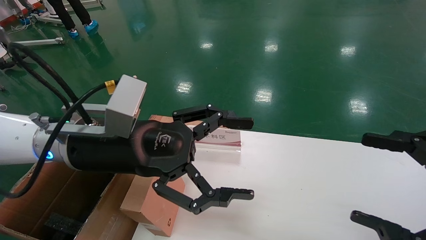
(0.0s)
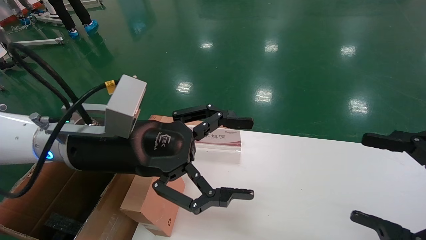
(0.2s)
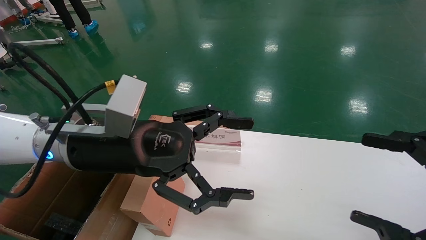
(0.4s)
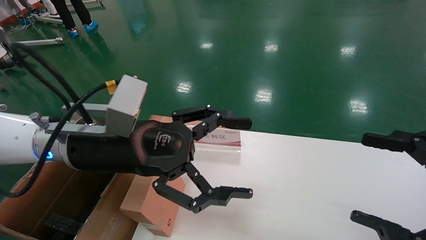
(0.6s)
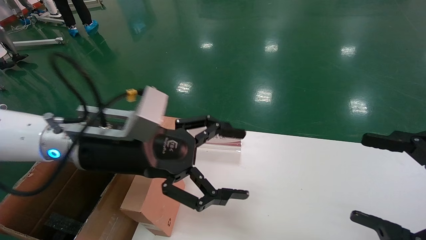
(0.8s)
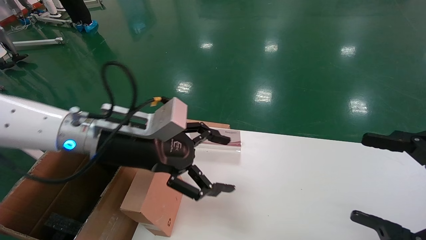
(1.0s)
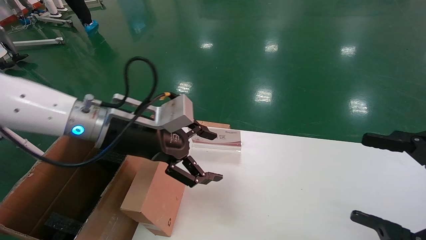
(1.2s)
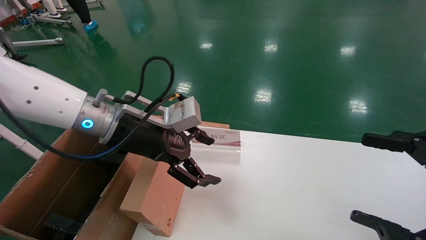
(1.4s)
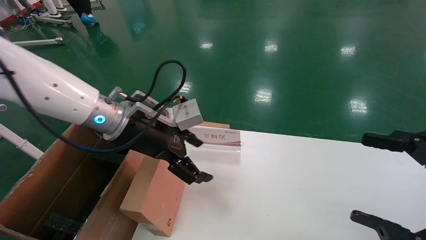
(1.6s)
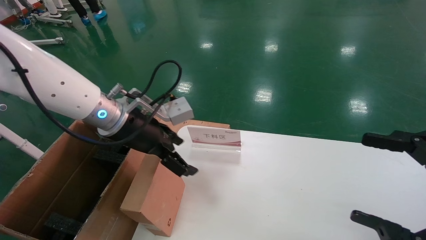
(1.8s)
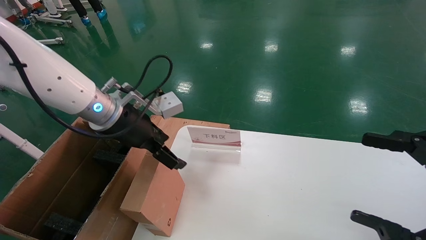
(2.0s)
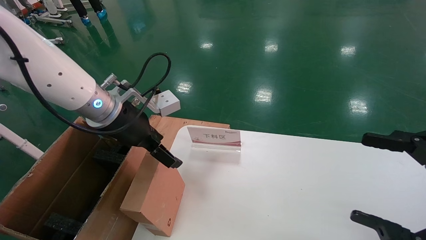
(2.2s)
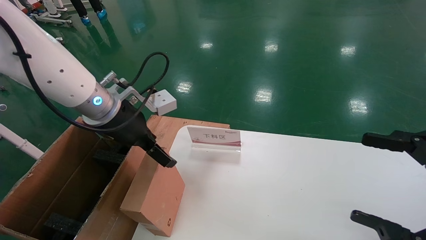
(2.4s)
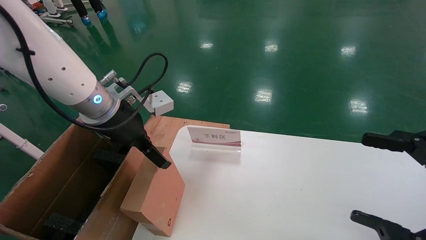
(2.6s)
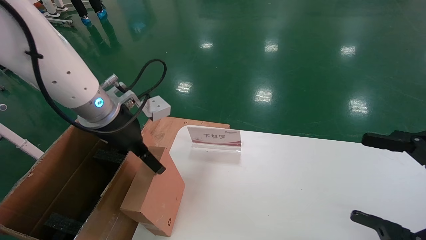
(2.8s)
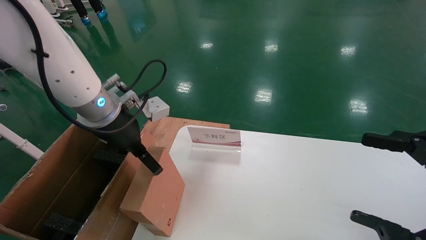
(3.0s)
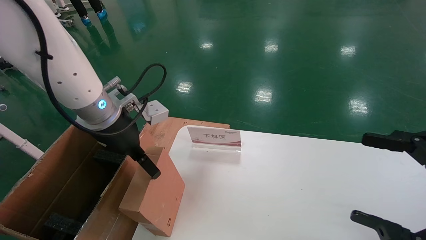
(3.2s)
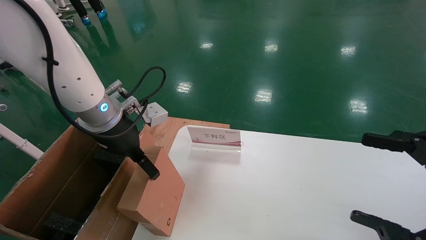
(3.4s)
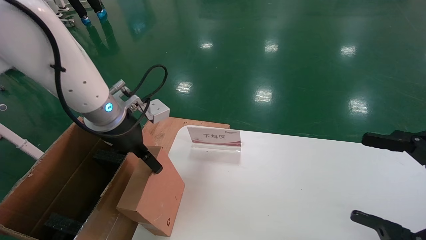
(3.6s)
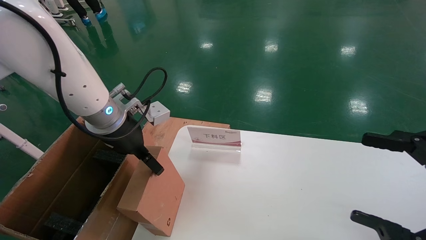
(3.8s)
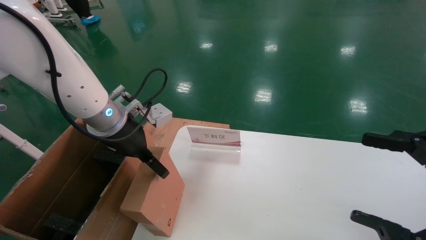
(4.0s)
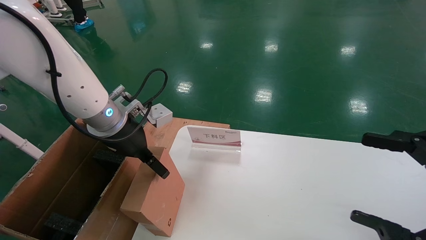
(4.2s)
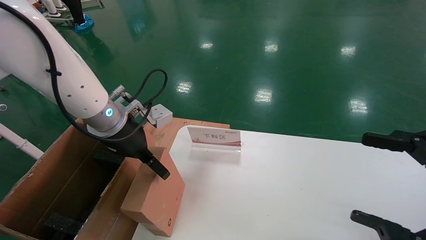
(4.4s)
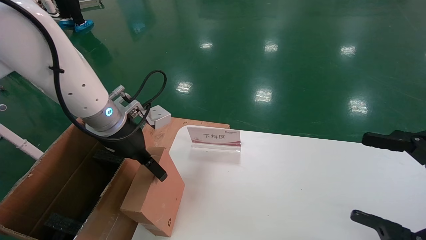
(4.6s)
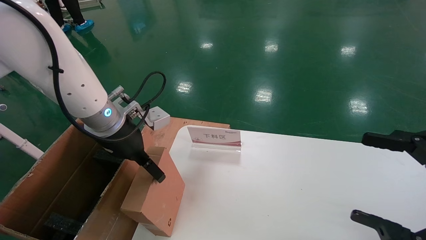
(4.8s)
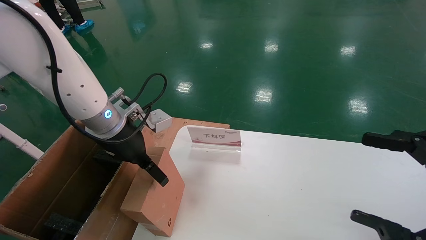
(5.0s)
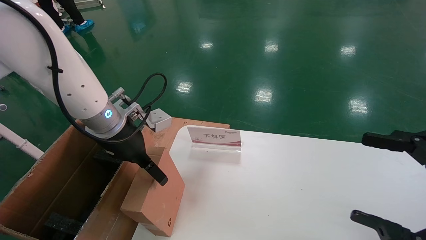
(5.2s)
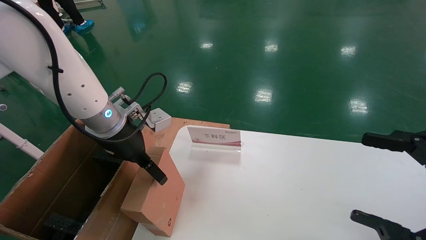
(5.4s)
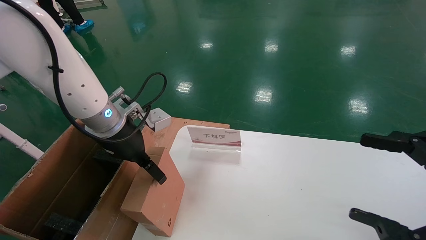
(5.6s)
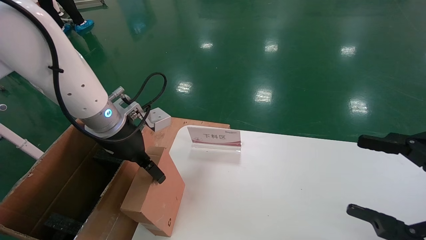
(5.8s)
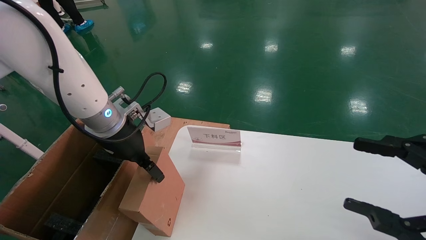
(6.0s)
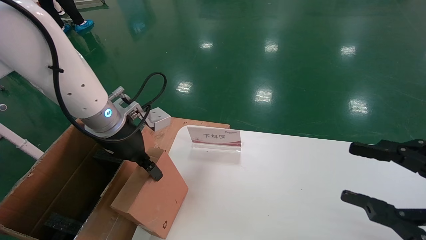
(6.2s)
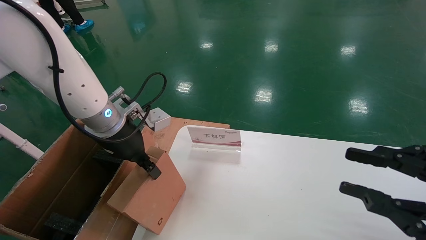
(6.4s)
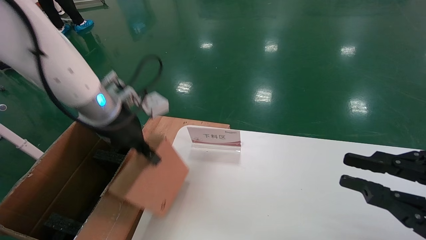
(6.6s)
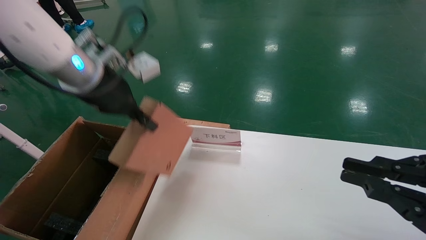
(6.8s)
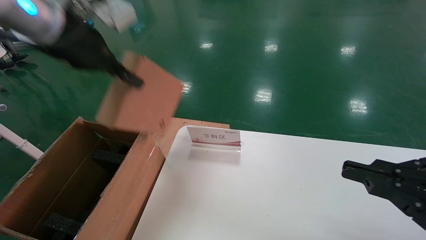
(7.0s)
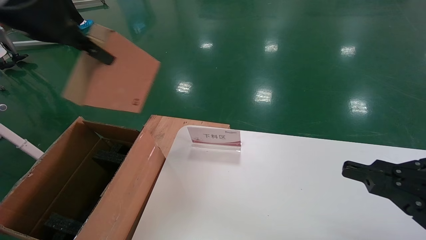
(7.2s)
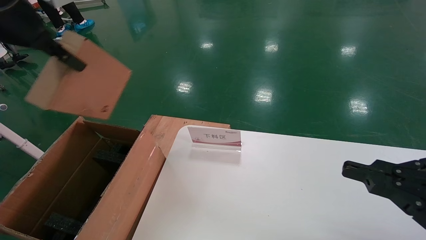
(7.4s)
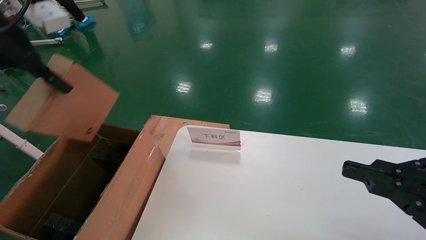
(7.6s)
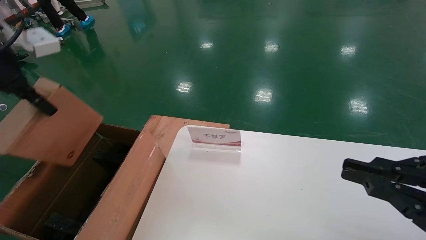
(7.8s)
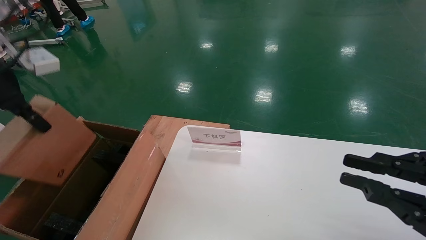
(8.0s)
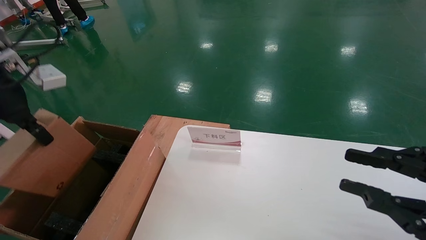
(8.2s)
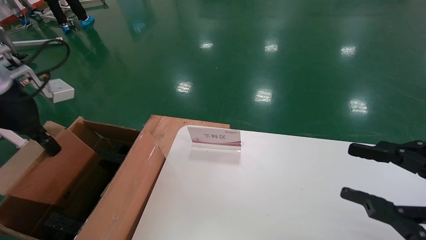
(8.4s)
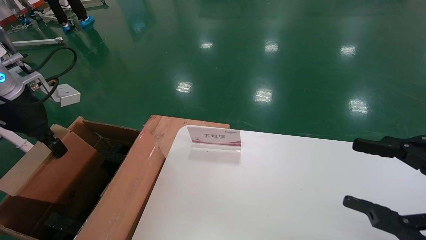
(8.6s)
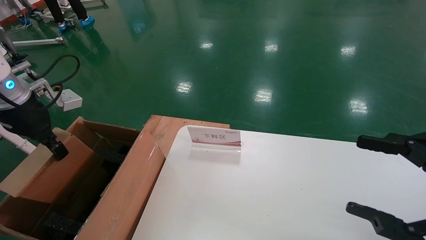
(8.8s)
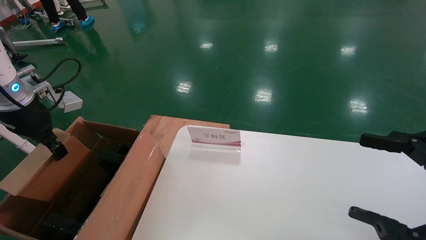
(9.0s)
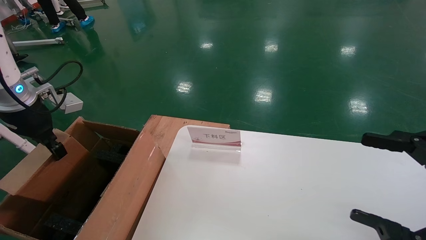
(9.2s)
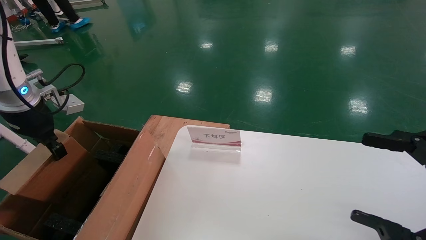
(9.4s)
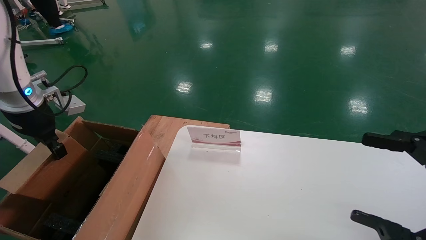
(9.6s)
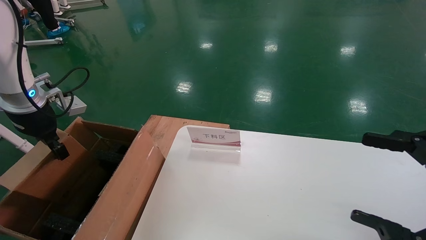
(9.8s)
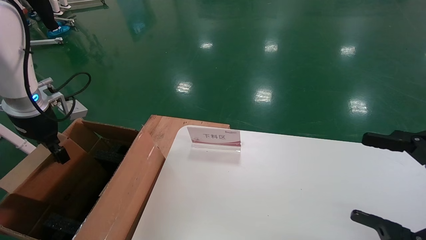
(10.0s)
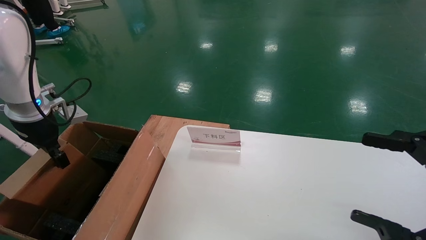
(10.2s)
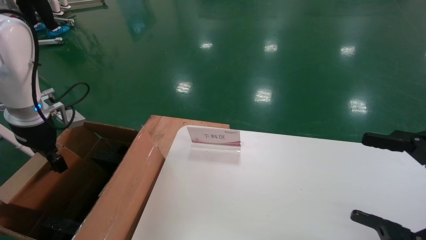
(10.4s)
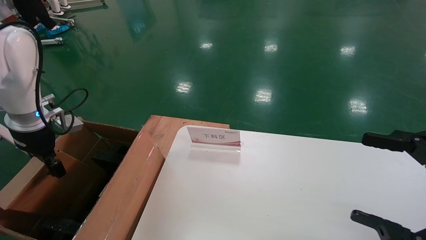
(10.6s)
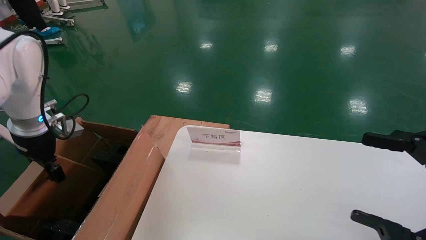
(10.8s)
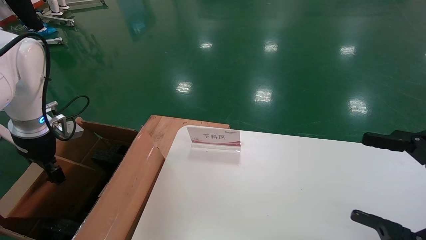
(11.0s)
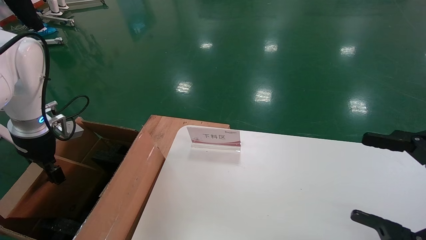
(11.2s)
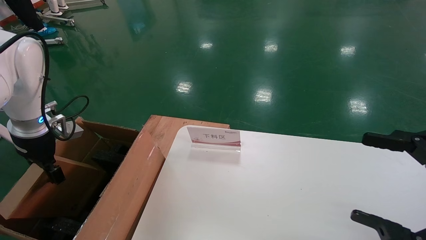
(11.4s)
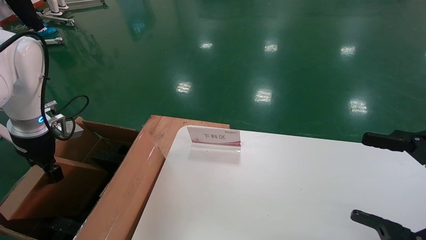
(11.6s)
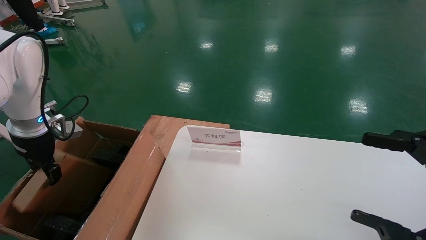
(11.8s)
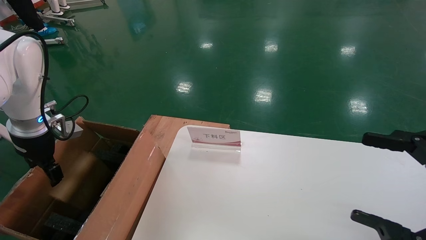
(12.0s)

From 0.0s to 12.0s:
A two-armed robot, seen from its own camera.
Task of the whole recording: pick up the small cardboard box and load it into the large cardboard box.
Step, from 1.2s to 6.4s: Pick up the mouse and power cord box.
From 0.0s to 1.6s: The left gripper shifts some 10 cm forward.
From 3.0s to 4.4s: The grippers move only a little.
From 4.4s to 6.0s: Both grippers stay about where they are.
From 6.0s to 7.6s: The right gripper closes up; the left gripper shifts about 25 cm upward, to the left and backward, and closes.
From 7.6s to 9.0s: The left gripper travels downward, to the left and forward by about 15 cm; the right gripper opens up.
From 9.0s to 10.4s: The left gripper heads downward, covering some 5 cm.
From 10.4s to 12.0s: The left gripper opens its fingers.

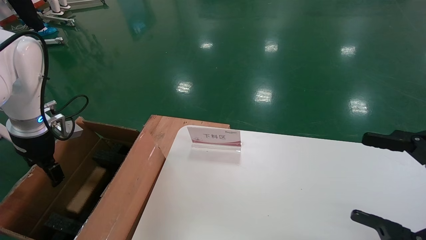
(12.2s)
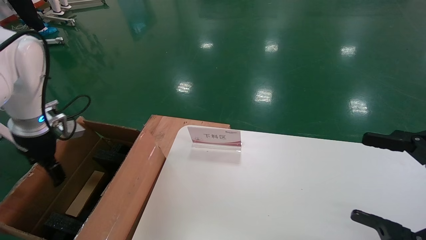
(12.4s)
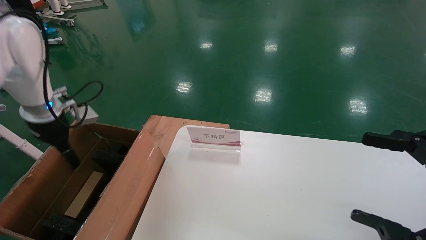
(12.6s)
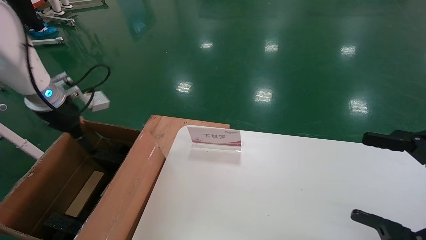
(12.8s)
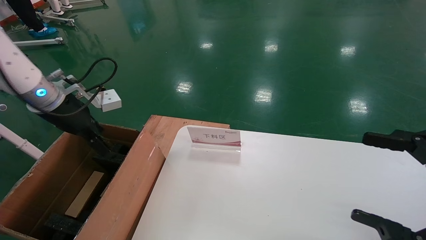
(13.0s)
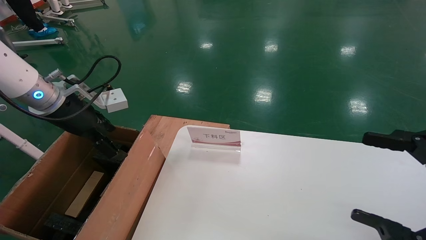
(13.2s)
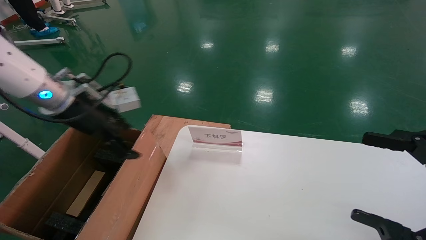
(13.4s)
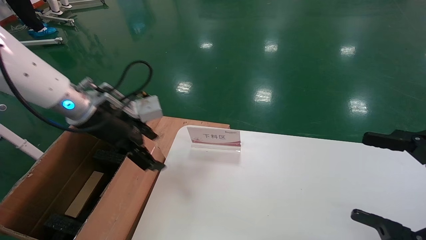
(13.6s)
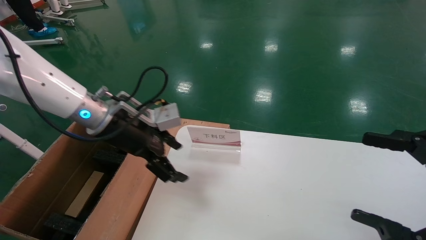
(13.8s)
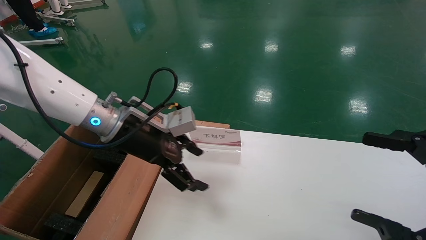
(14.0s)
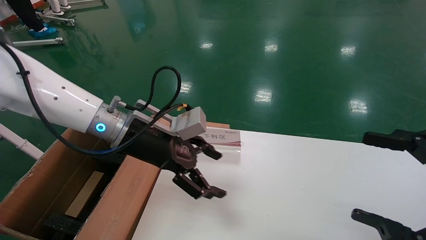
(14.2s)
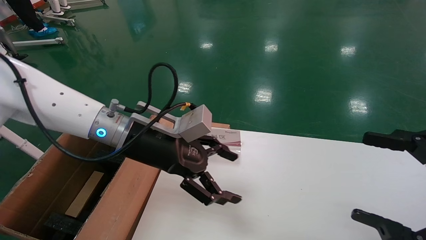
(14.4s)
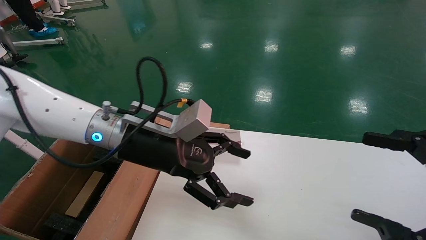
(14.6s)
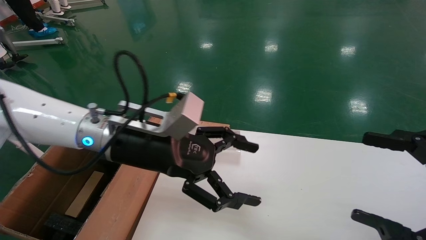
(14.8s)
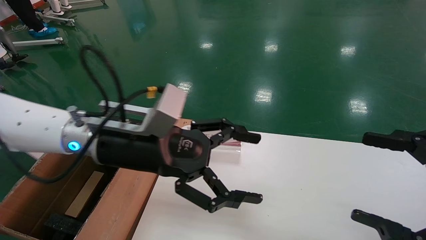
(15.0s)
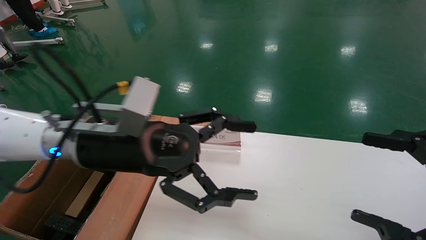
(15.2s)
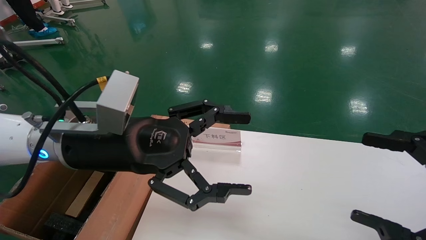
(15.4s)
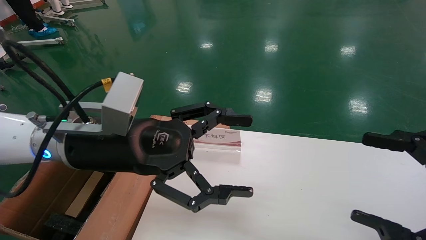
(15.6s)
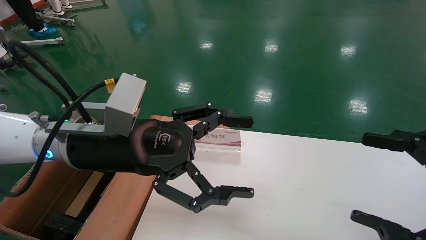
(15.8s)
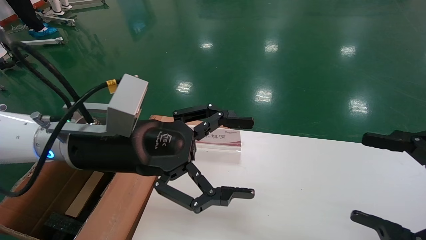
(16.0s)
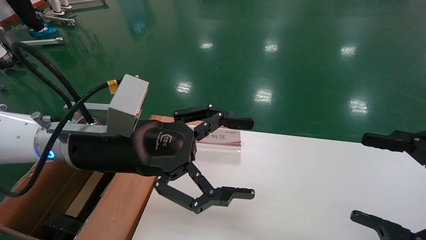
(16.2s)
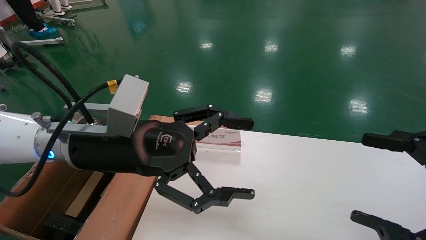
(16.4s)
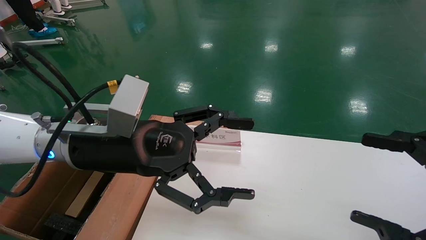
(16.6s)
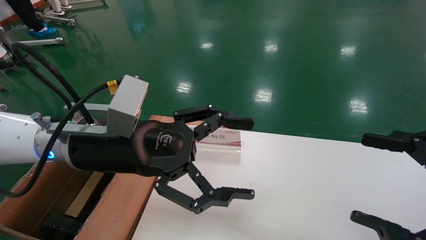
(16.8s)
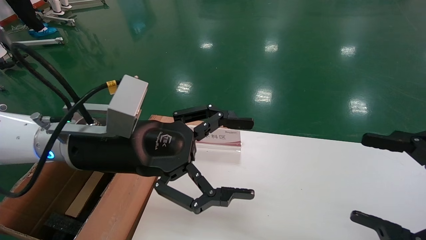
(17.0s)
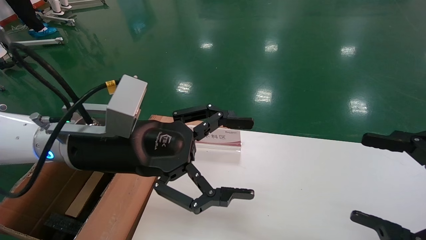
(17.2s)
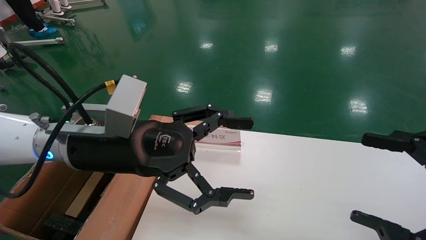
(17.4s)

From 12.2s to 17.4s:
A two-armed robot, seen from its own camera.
Task of the whole recording: pick up the small cardboard box and load it into the large cardboard box.
From 12.2s to 14.0s: The left gripper moves to the right, some 25 cm.
From 14.0s to 15.6s: The left gripper travels backward by approximately 10 cm.
From 15.6s to 17.4s: Both grippers stay about where they are.
